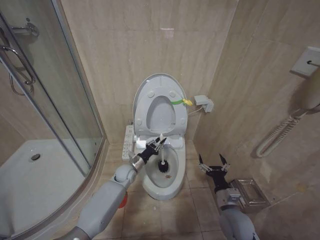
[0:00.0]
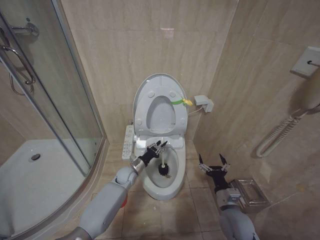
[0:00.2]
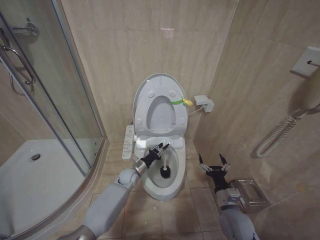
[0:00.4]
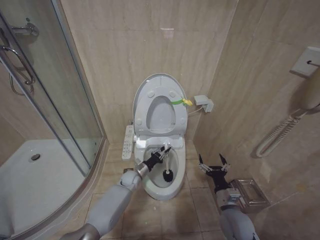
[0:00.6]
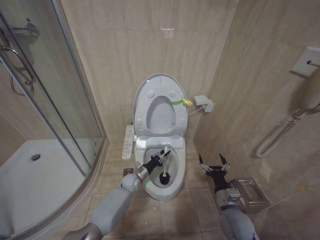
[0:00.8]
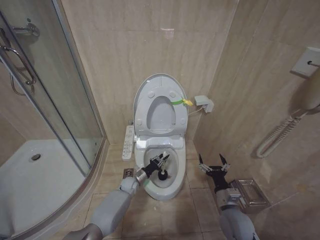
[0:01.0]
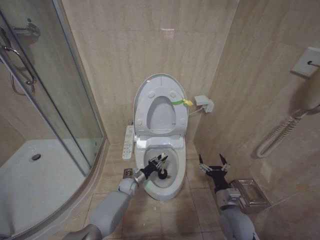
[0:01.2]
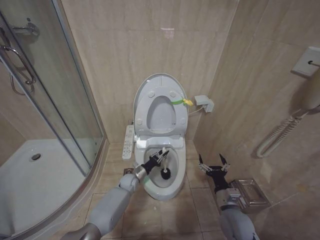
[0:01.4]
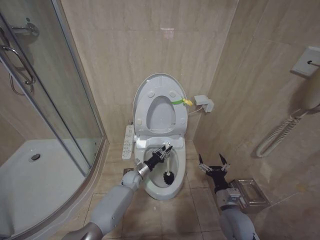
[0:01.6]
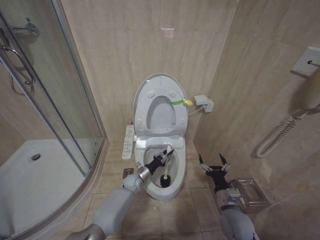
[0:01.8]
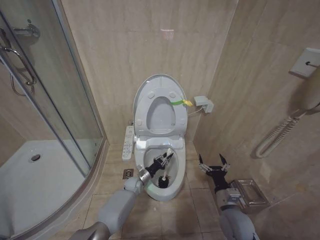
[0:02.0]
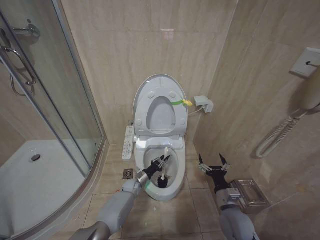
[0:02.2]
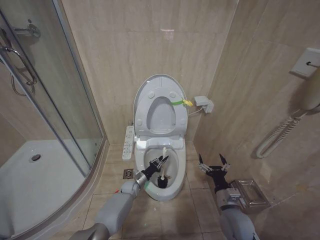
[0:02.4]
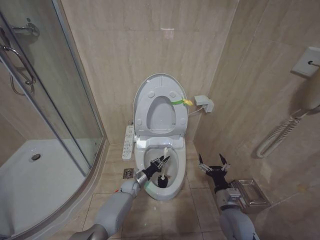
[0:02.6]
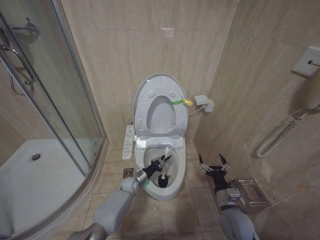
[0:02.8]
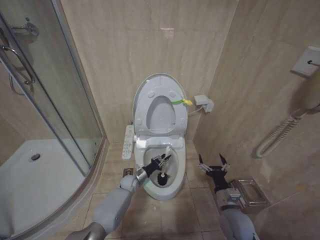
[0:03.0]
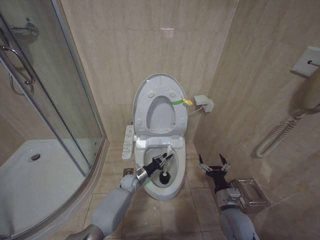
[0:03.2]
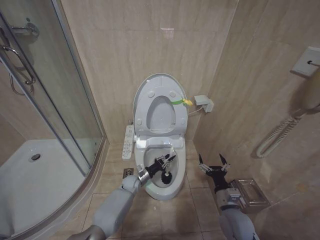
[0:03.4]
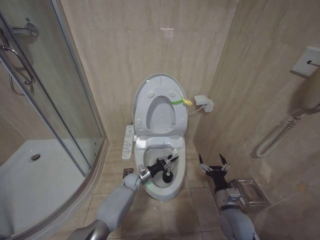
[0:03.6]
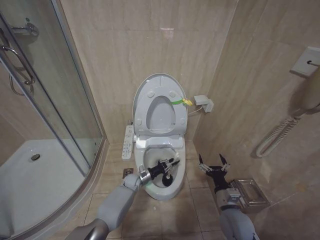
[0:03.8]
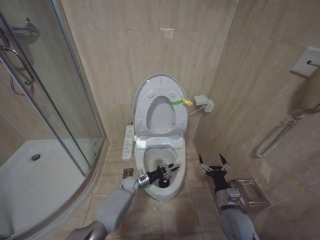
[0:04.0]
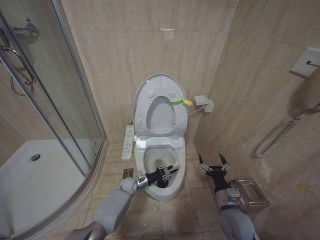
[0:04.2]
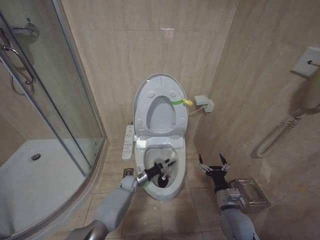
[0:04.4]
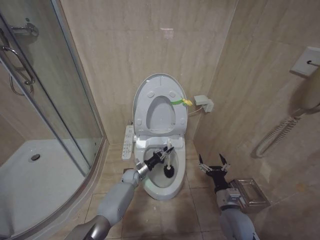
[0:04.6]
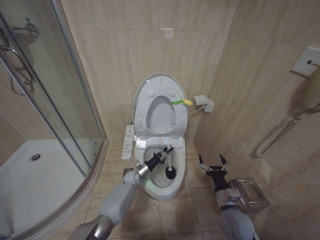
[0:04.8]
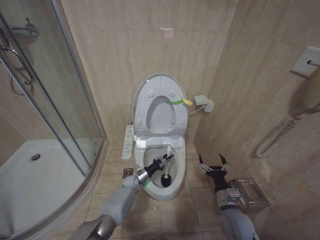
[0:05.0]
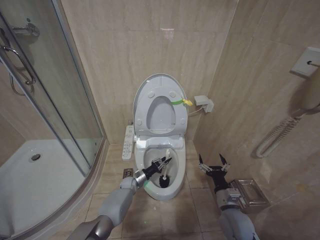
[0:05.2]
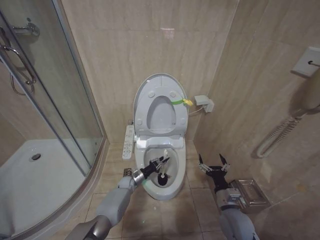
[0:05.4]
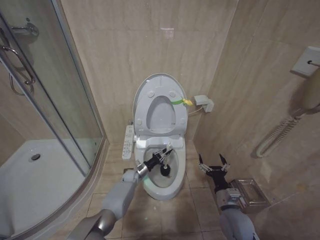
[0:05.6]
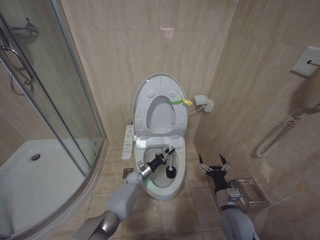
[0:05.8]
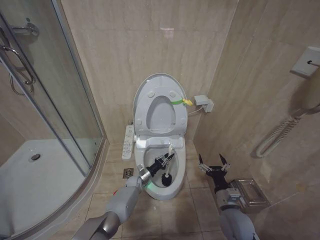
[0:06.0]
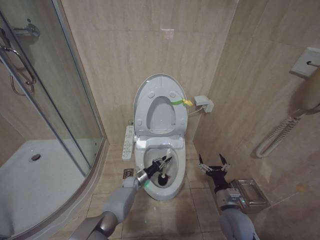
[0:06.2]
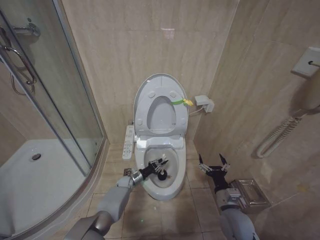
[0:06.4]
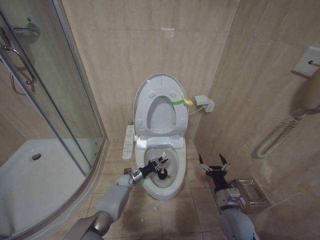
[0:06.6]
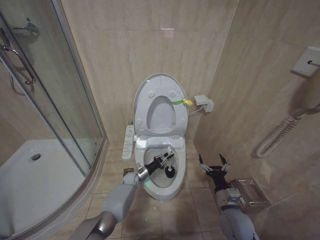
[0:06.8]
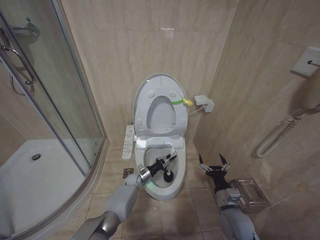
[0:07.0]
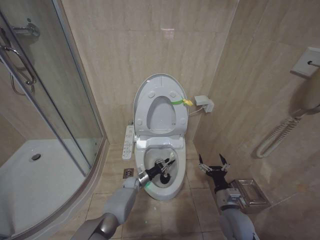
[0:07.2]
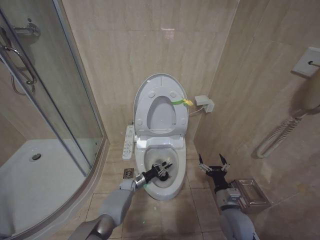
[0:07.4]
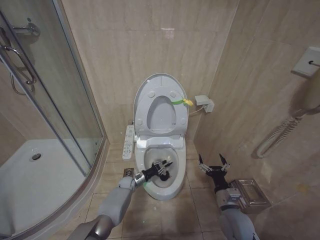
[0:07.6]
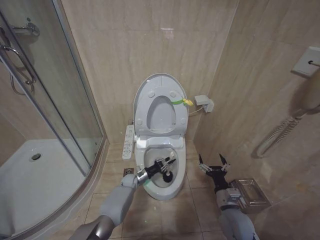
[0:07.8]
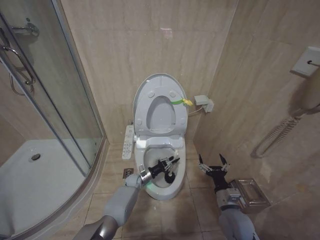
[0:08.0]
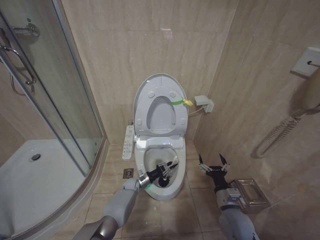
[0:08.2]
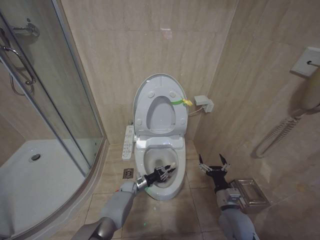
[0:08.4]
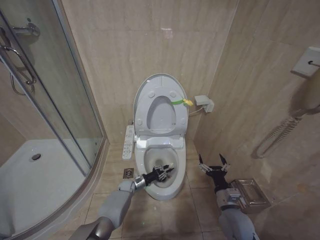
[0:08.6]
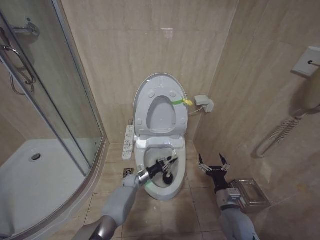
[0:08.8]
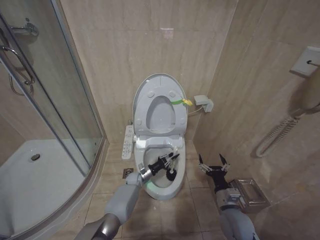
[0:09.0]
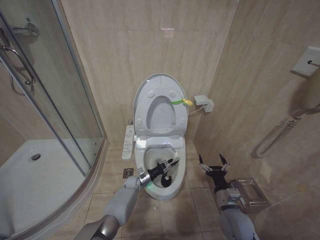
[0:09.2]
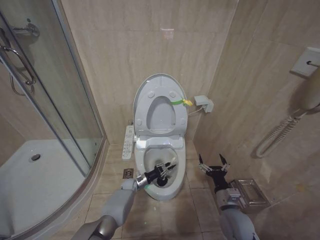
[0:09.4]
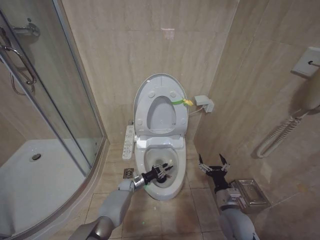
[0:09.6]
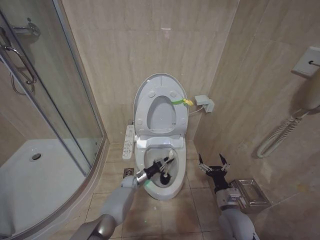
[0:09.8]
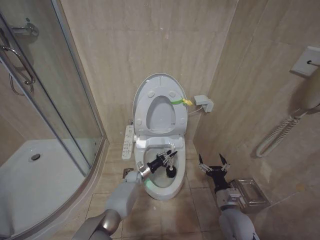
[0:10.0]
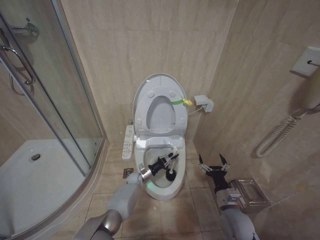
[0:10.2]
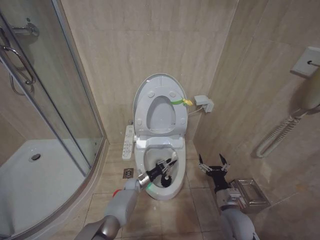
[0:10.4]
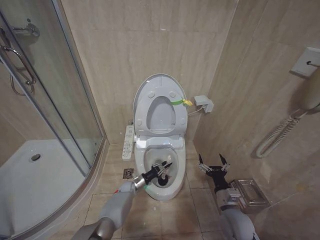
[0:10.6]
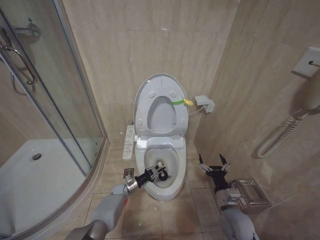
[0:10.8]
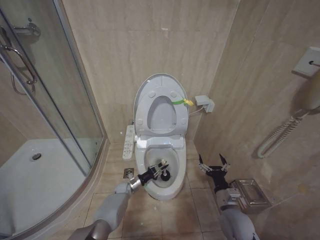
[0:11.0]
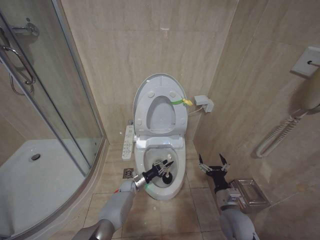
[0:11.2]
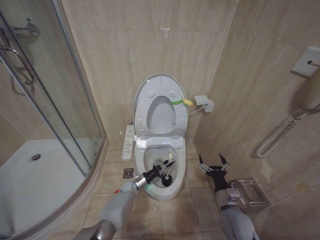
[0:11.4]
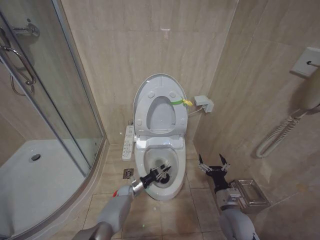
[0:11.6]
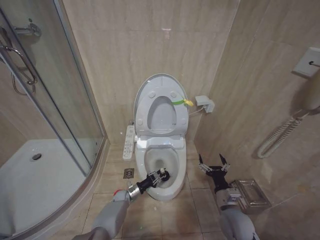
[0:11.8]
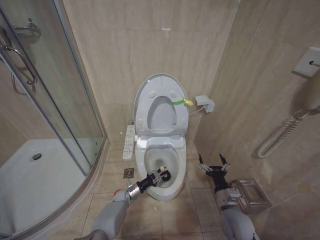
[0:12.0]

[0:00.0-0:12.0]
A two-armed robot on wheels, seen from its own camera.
Task of the whole recording: Open the toilet lid, clean the toilet bowl with a toilet brush, close the toilet lid, and flush.
0:00.0 to 0:01.6: The left gripper is displaced downward by approximately 5 cm.
0:03.0 to 0:06.0: The grippers move only a little.
0:06.0 to 0:07.6: The left gripper goes left and right, about 5 cm each way, reversing 2 times.
0:07.6 to 0:09.0: The left gripper moves about 5 cm.
0:10.4 to 0:12.0: The left gripper moves left and right over some 5 cm, changing direction 2 times.

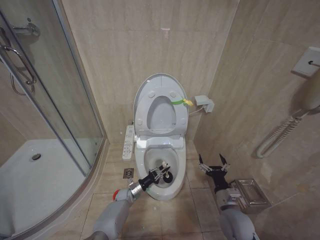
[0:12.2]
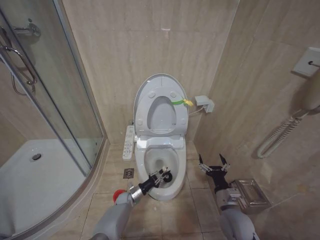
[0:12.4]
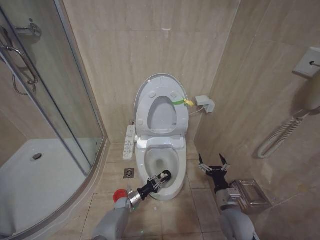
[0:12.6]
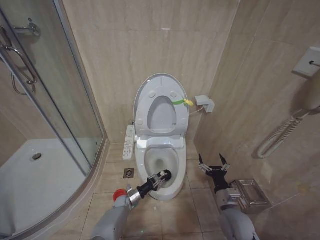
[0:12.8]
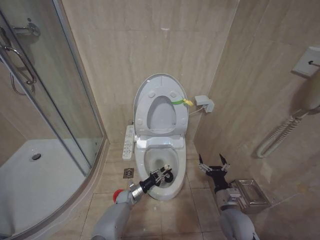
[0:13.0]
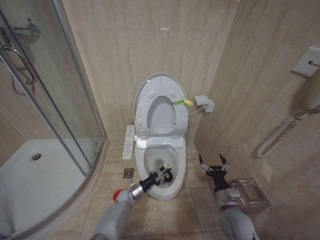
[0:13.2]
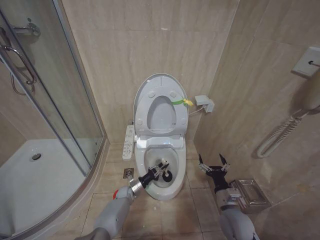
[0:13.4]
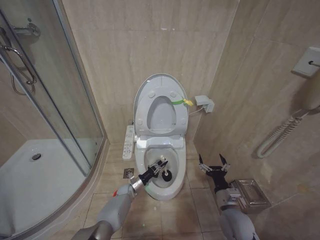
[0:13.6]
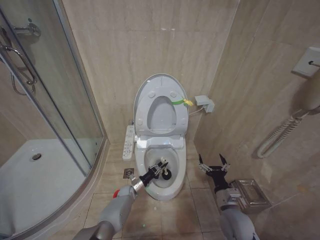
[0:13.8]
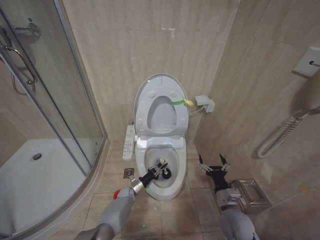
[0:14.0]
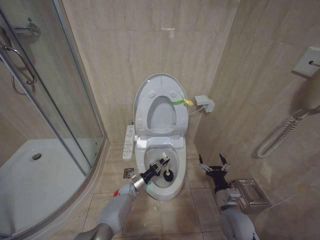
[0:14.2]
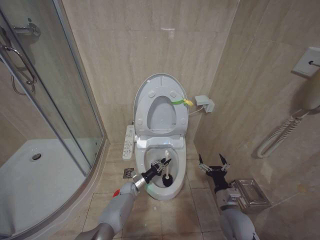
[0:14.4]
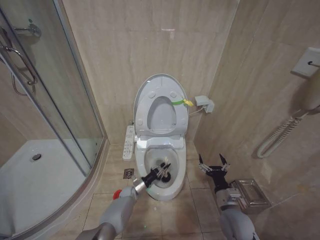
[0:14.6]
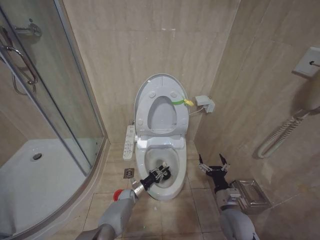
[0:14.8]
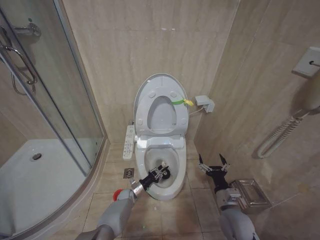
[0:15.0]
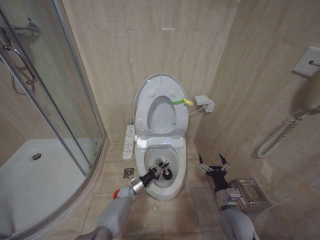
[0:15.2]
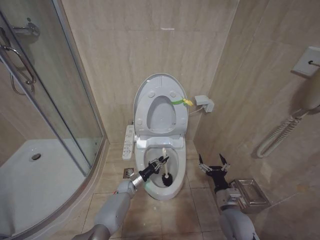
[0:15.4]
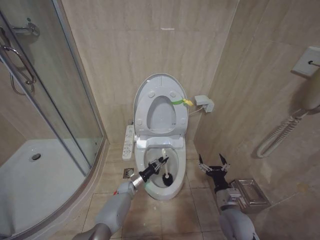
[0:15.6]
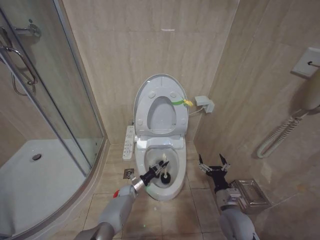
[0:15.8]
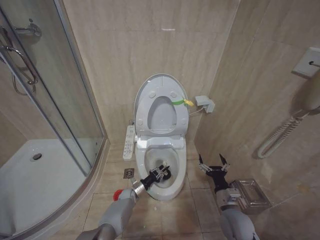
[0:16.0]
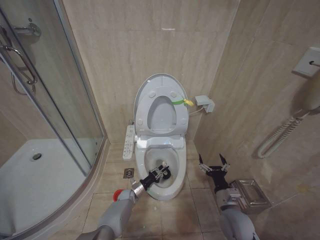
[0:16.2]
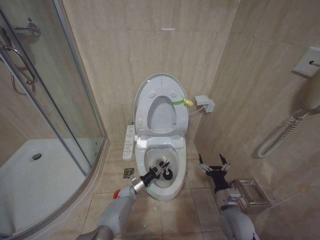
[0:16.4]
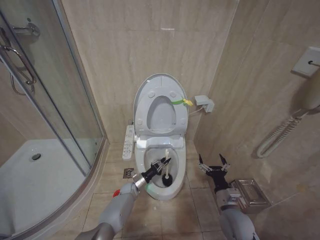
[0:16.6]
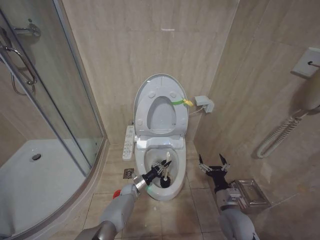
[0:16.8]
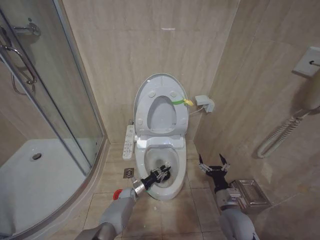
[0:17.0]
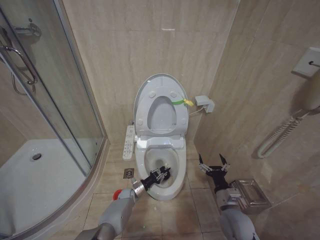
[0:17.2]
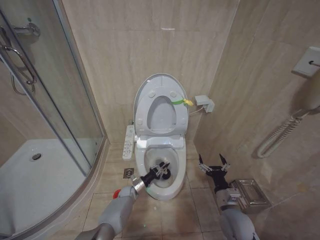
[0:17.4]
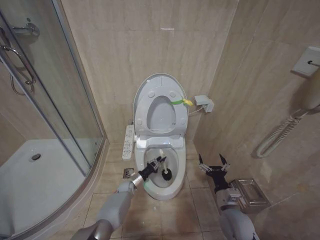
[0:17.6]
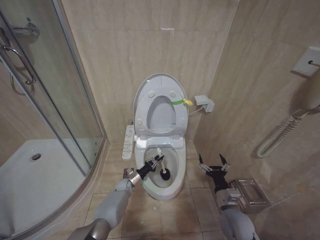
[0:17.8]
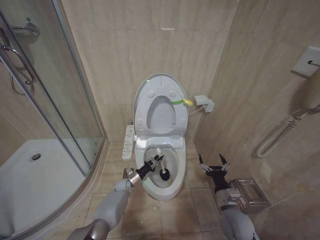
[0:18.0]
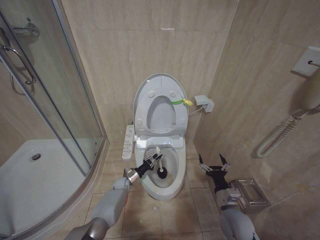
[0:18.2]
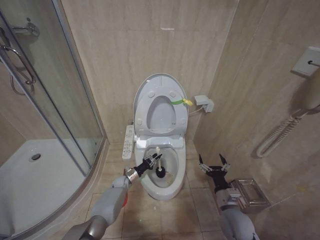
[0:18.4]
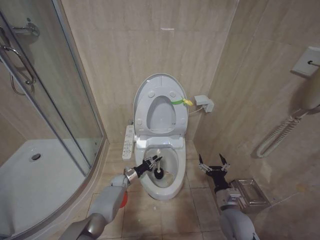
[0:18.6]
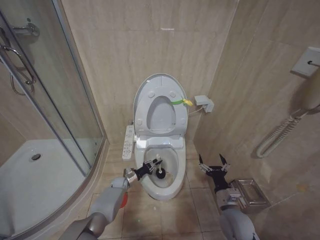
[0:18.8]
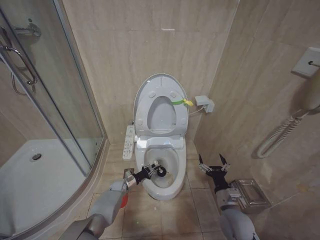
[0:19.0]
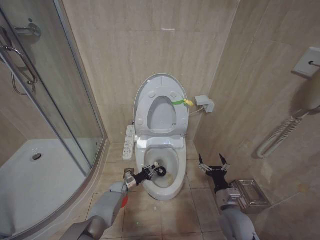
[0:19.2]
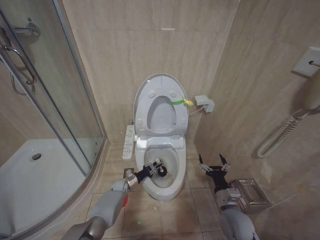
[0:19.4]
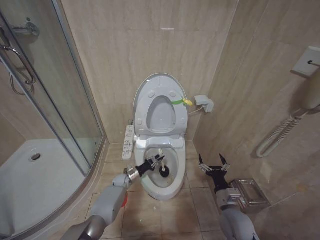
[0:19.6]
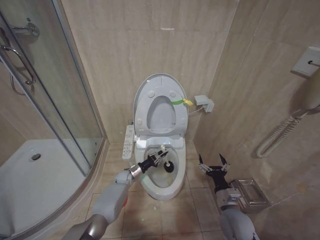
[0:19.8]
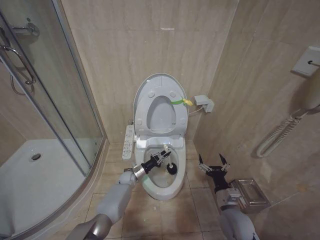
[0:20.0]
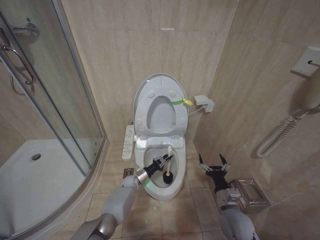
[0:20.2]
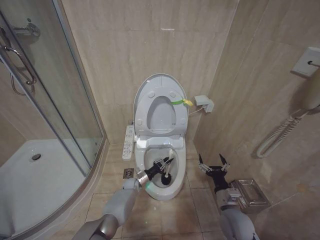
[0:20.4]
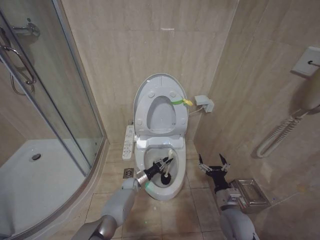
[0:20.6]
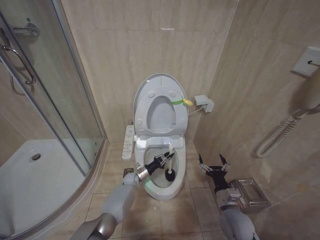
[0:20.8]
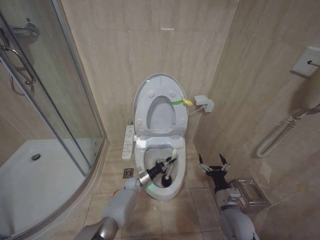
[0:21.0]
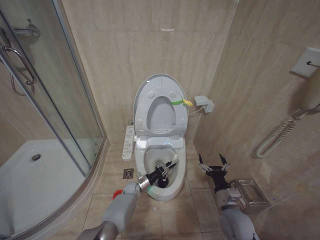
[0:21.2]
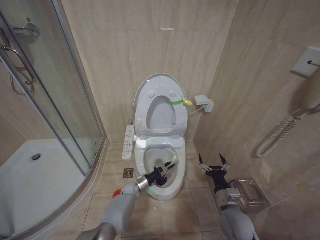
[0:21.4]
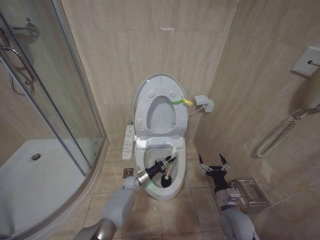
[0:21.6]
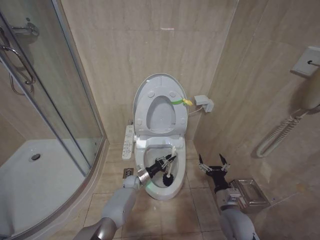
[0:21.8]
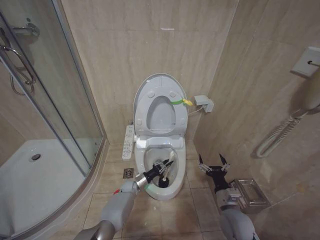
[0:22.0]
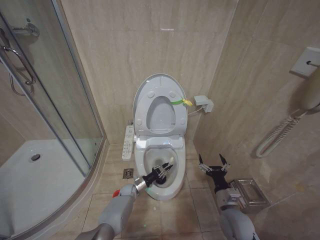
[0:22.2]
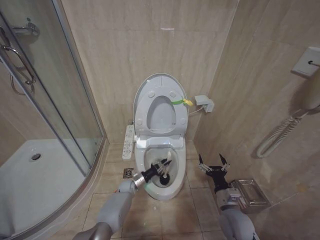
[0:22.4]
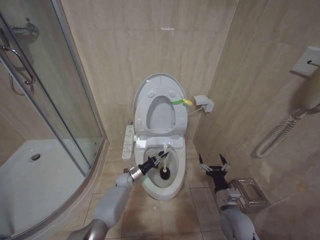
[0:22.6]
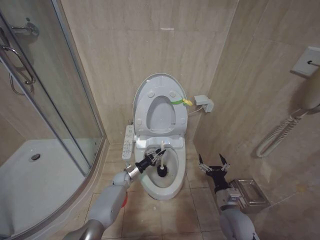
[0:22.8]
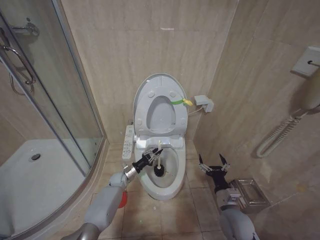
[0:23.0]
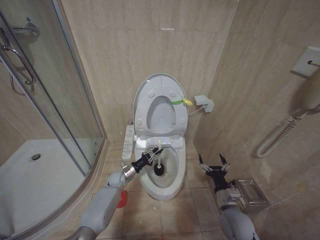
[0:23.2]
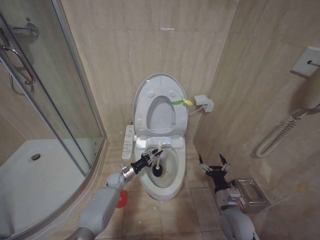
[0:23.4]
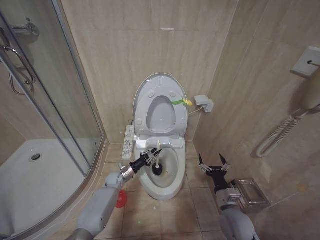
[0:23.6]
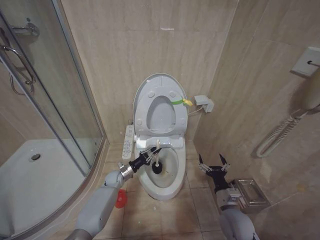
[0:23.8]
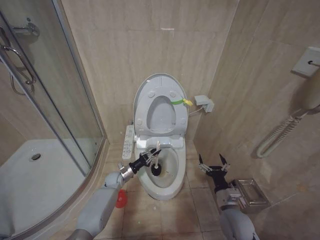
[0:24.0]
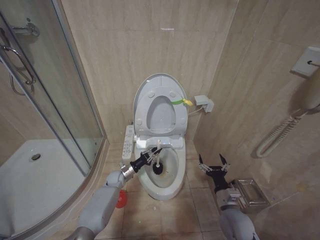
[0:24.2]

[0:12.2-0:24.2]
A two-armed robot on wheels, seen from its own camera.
Task of the whole recording: Open the toilet lid, clean the toilet bowl with a toilet brush, close the toilet lid, and flush.
0:12.2 to 0:13.8: The grippers make only small movements.
0:15.2 to 0:18.2: The grippers move only a little.
0:18.2 to 0:19.8: There are only small adjustments of the grippers.
0:19.8 to 0:21.2: The left gripper is displaced to the right by roughly 5 cm.
0:21.2 to 0:22.6: The left gripper shifts by some 5 cm.
0:22.6 to 0:24.2: The left gripper ends up some 5 cm from where it was.
